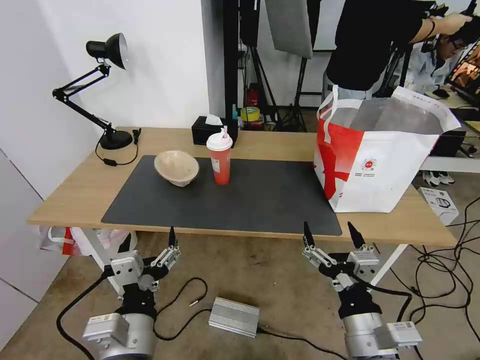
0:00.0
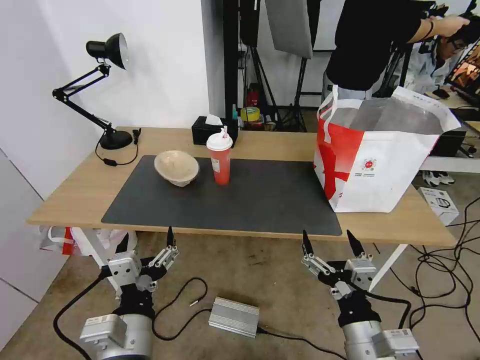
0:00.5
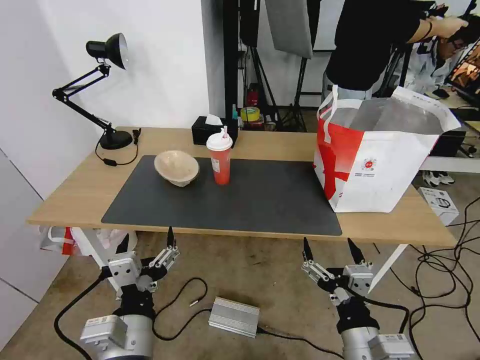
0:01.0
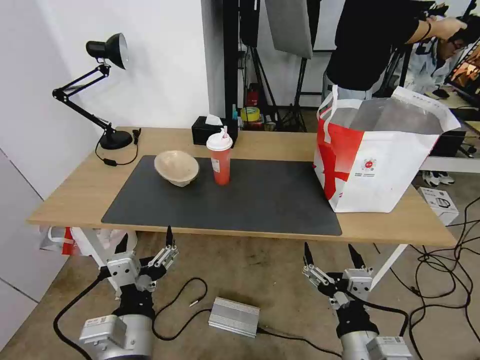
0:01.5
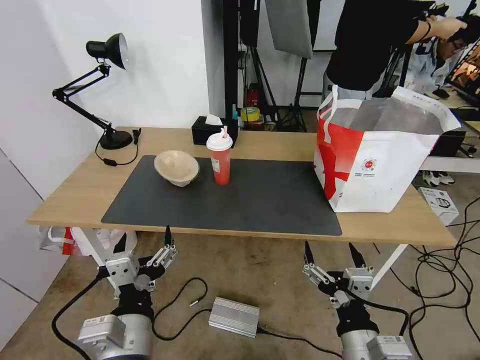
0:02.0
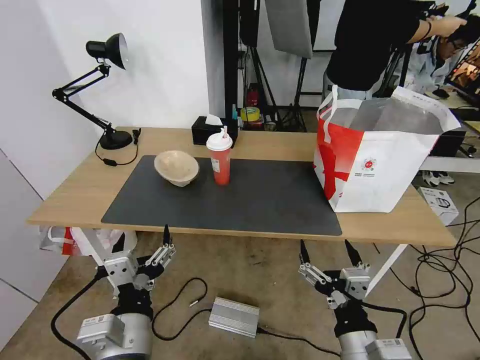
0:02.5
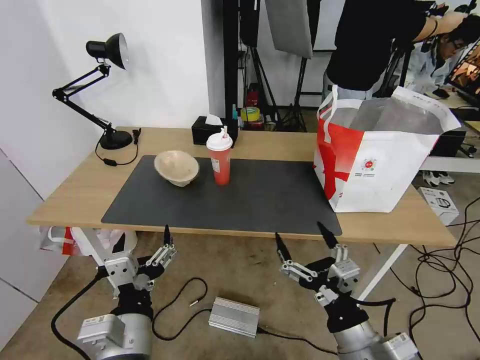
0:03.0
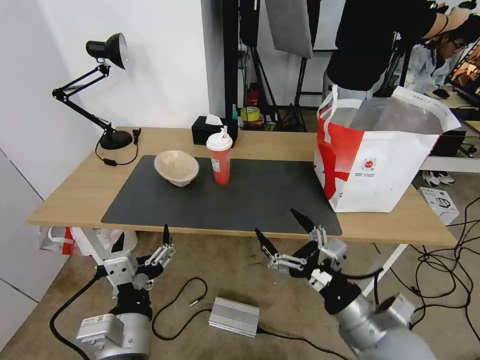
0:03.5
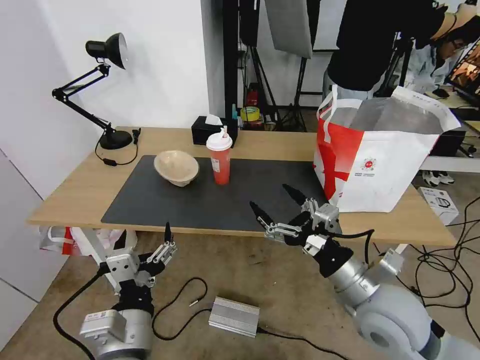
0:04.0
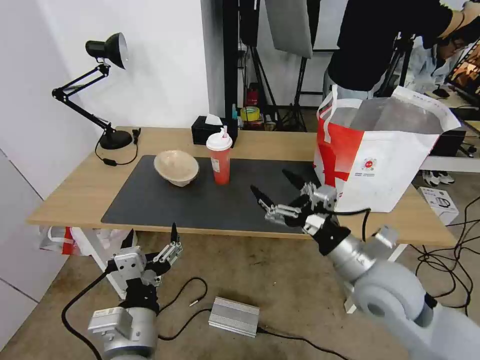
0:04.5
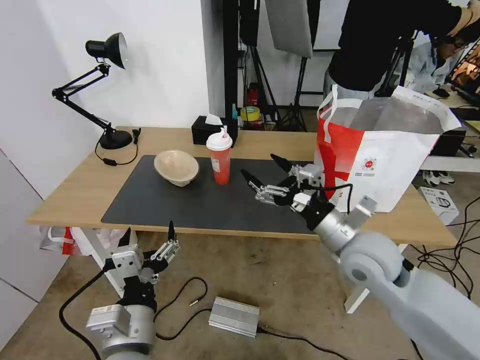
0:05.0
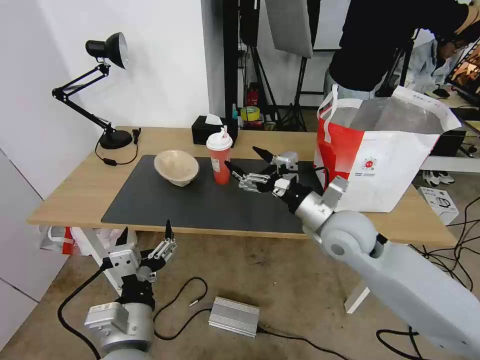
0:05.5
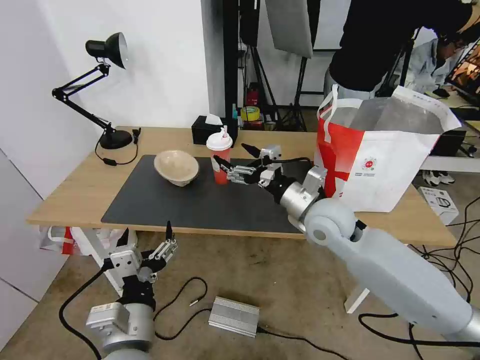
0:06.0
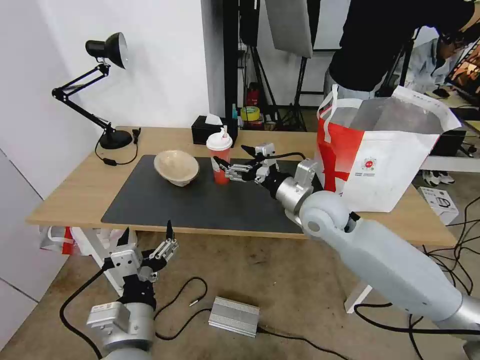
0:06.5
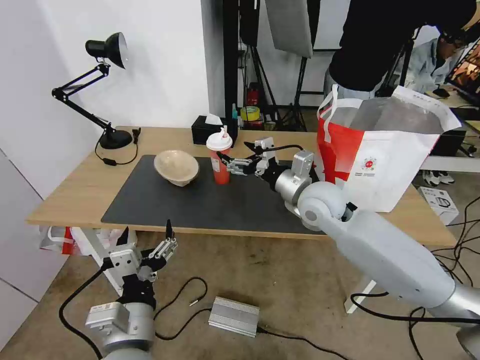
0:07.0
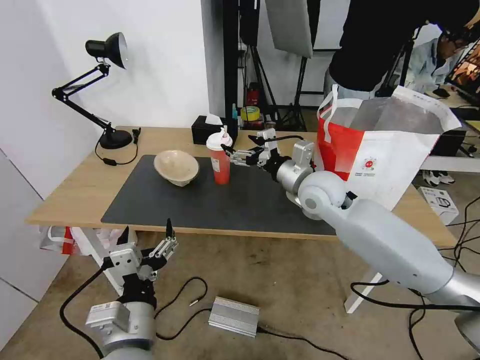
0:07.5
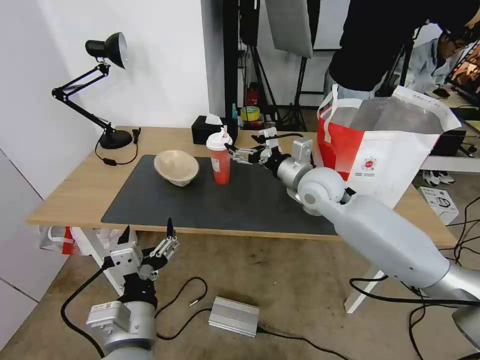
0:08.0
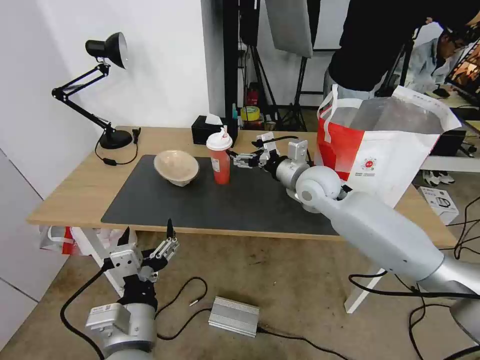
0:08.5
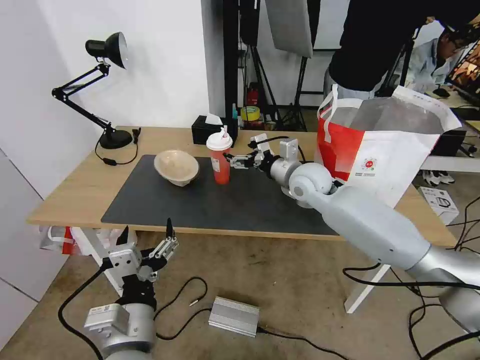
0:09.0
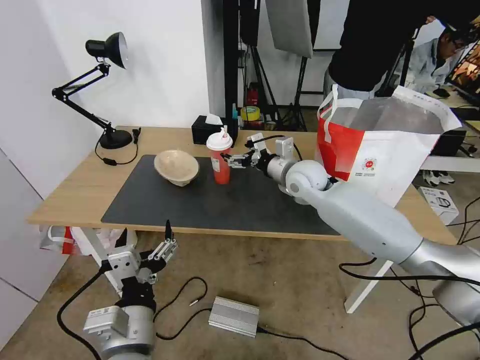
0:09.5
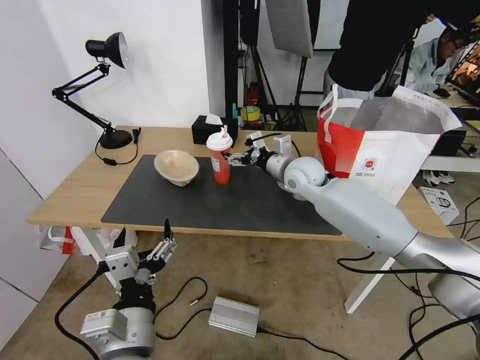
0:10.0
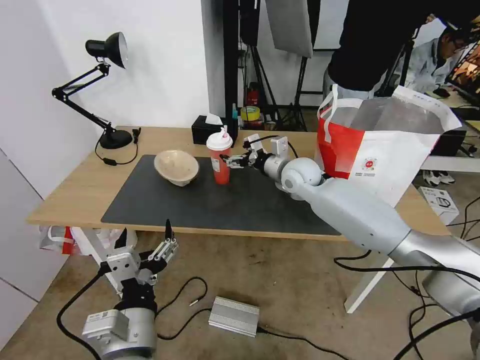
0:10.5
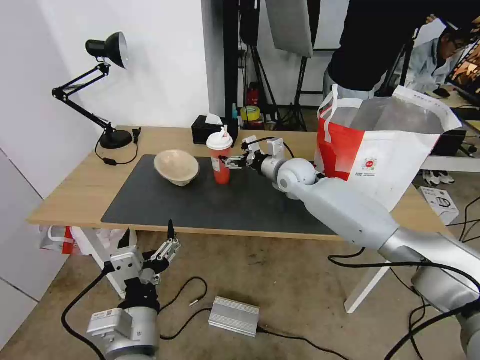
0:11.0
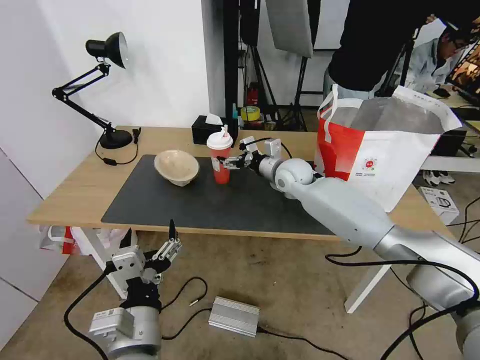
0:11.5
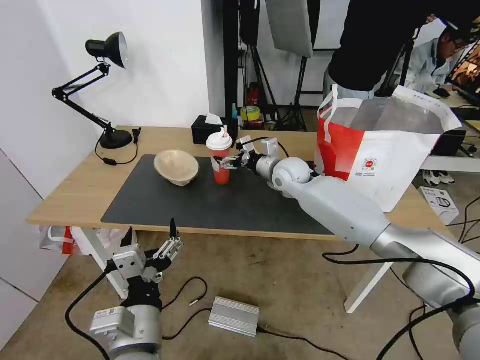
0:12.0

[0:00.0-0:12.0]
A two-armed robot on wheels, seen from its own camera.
Task of the whole recording: Pick up the trash from the table and place it into the takeout bag.
0:00.0 to 0:02.0: There are only small adjustments of the grippers.
0:02.0 to 0:04.0: The right gripper goes about 15 cm forward and upward.
0:04.0 to 0:06.0: The right gripper moves forward, roughly 15 cm.
0:06.0 to 0:08.0: The right gripper shifts about 5 cm forward.
0:08.0 to 0:10.0: The right gripper travels forward by some 5 cm.
0:10.0 to 0:12.0: There are only small adjustments of the grippers.

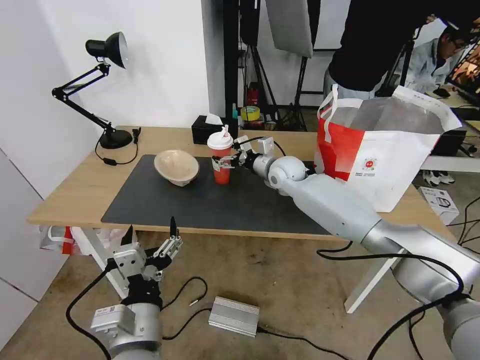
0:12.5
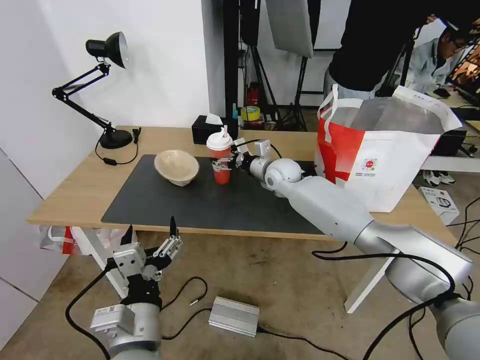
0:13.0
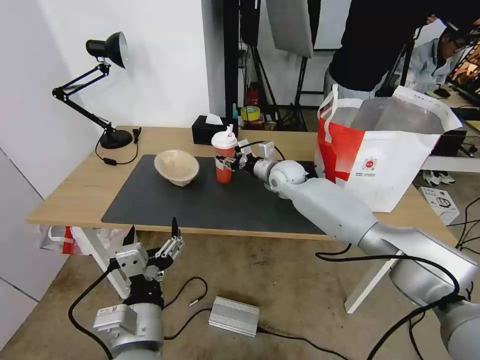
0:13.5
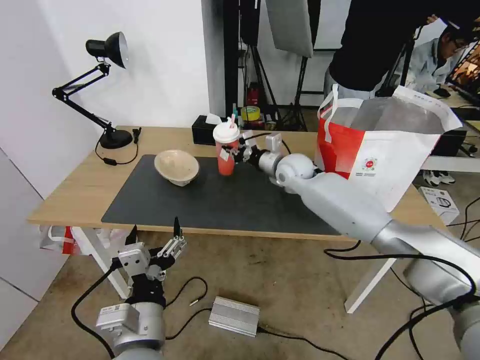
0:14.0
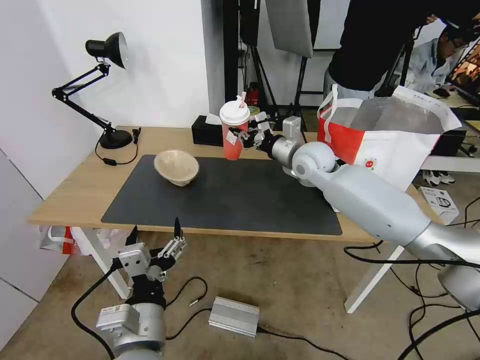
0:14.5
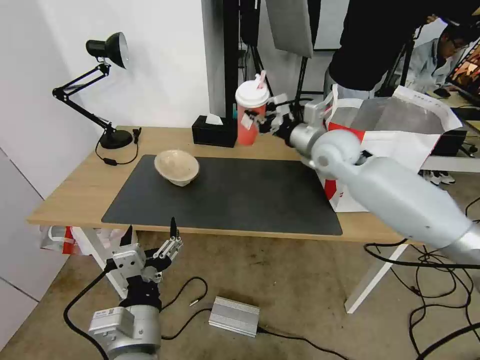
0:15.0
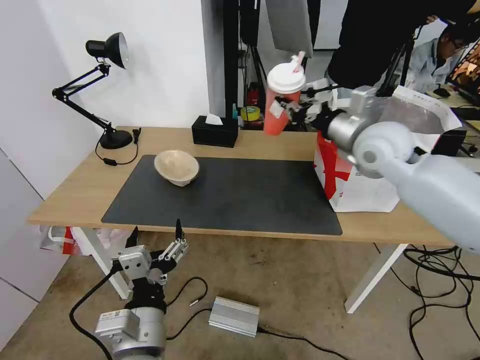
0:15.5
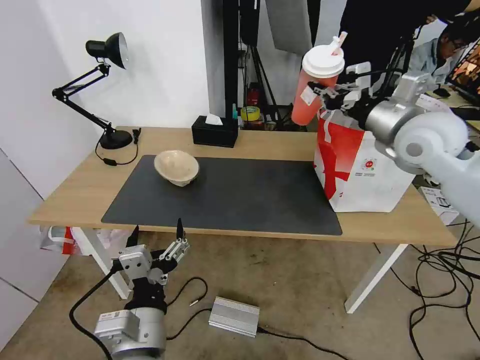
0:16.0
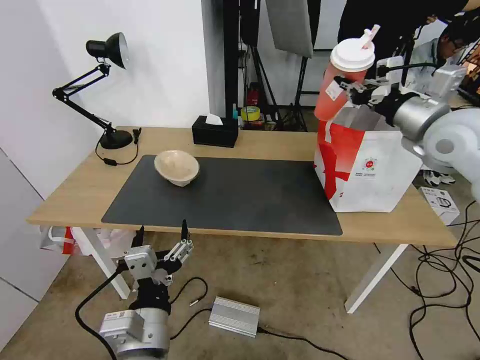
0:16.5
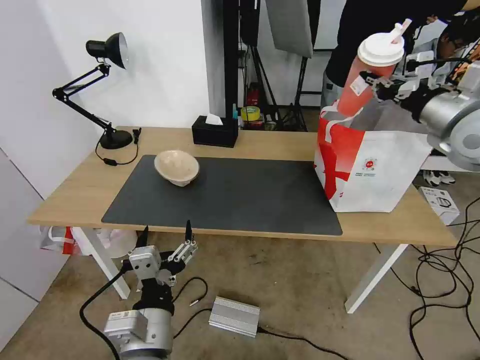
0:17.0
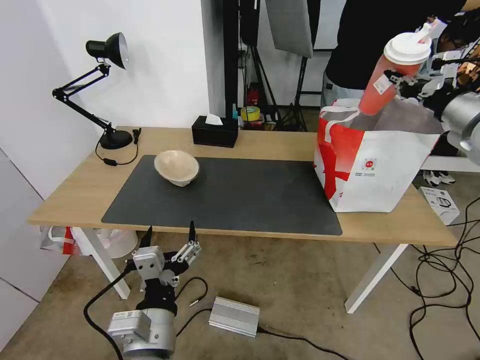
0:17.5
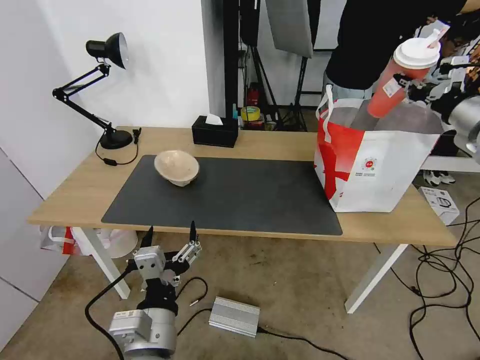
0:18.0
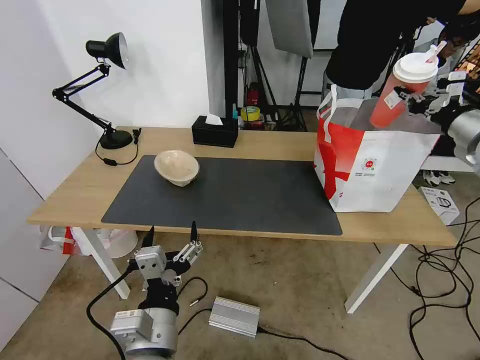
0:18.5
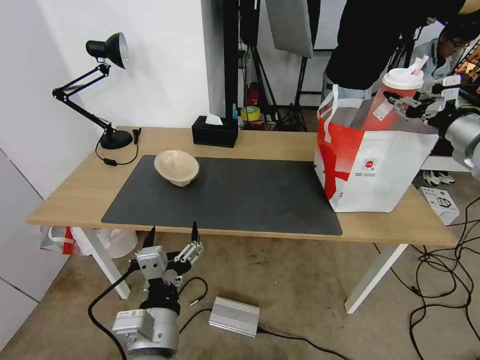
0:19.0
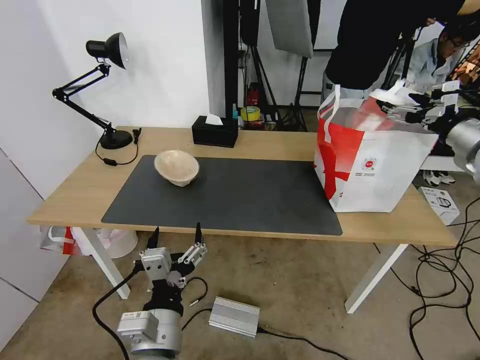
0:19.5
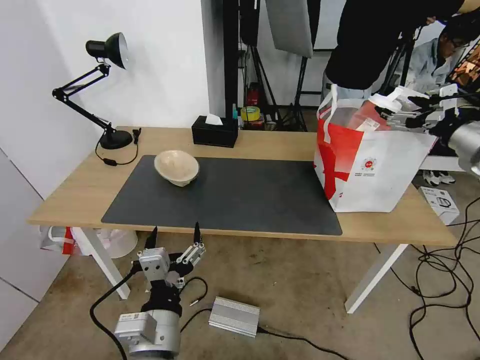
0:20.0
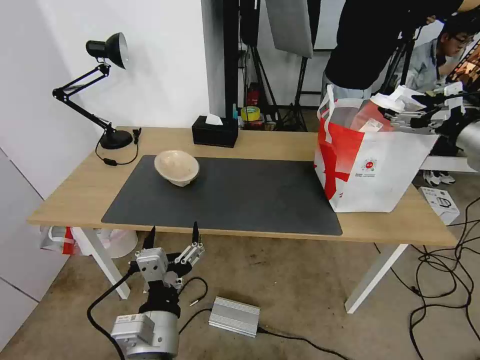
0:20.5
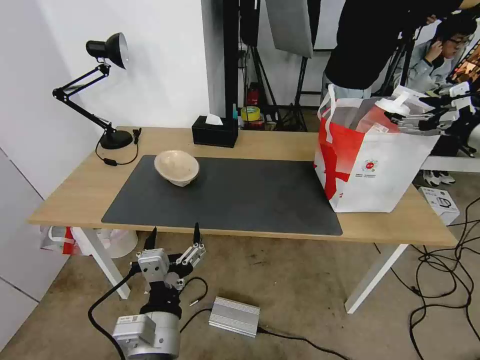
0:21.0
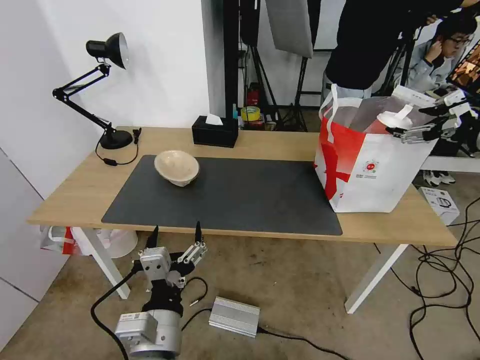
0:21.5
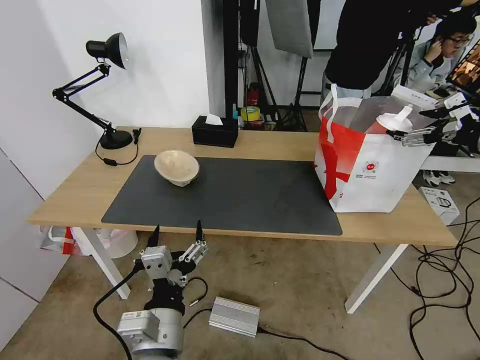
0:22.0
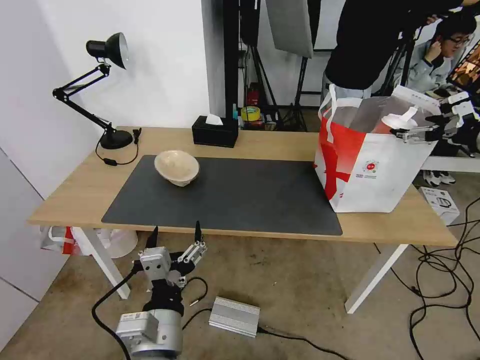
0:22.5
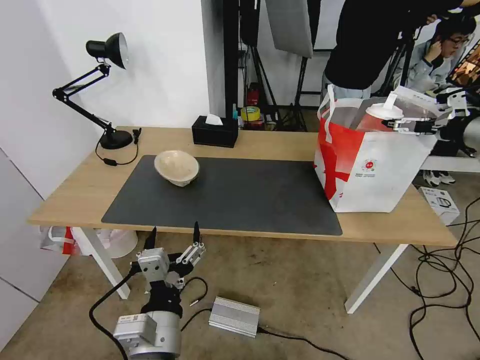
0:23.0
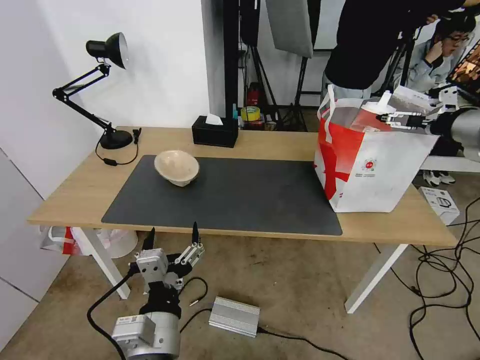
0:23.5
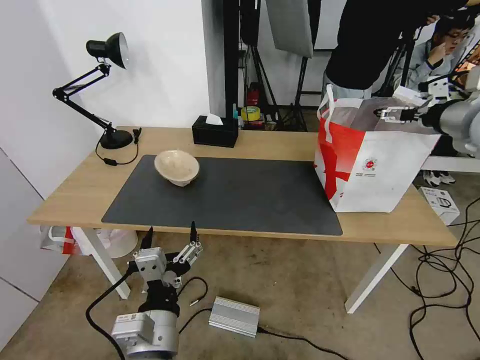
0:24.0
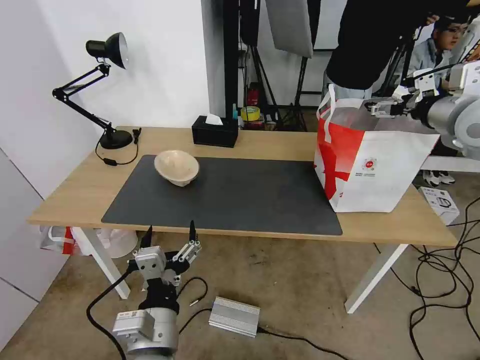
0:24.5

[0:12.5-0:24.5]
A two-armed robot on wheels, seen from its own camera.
Task of the whole recording: Pick up the trash from the table and place it into the takeout bag.
0:12.5 to 0:14.5: The right gripper is displaced upward by some 5 cm, and closes its fingers.
0:14.5 to 0:16.5: The right gripper goes some 25 cm to the right, upward and backward.
0:16.5 to 0:18.5: The right gripper moves to the right, roughly 15 cm.
0:18.5 to 0:20.5: The right gripper opens its fingers.
0:20.5 to 0:22.5: The grippers stay close to where they were, moving slightly.
0:22.5 to 0:24.5: The right gripper shifts about 10 cm to the left and forward.

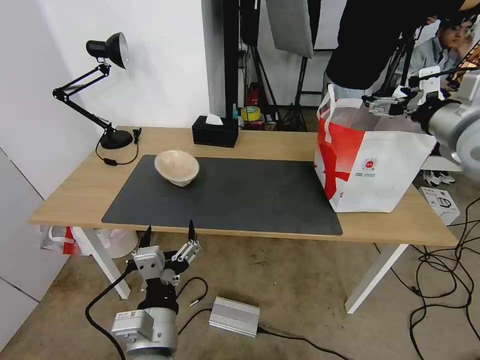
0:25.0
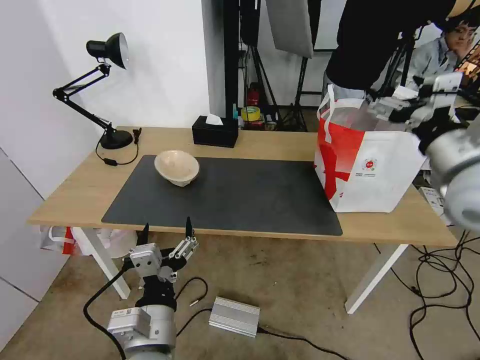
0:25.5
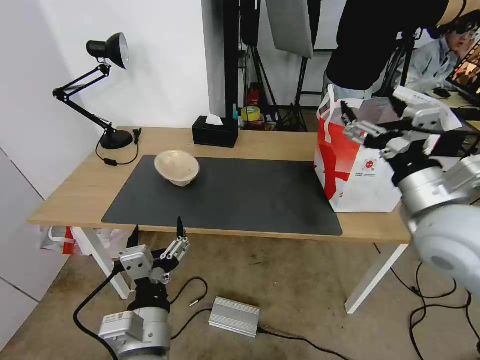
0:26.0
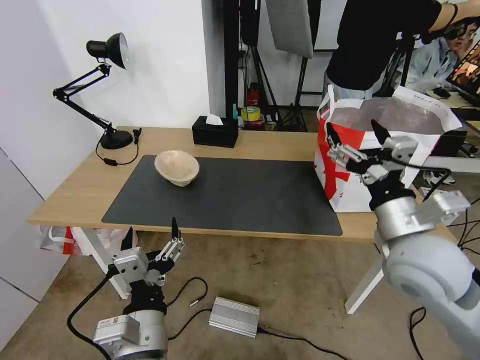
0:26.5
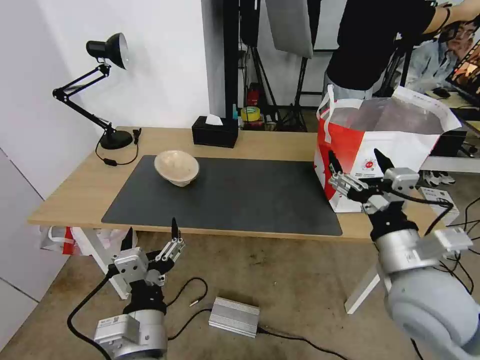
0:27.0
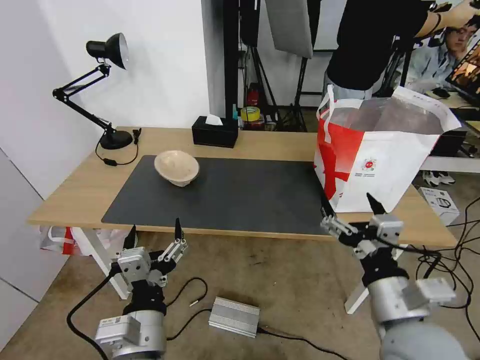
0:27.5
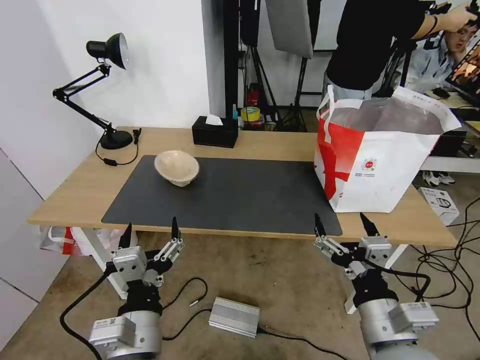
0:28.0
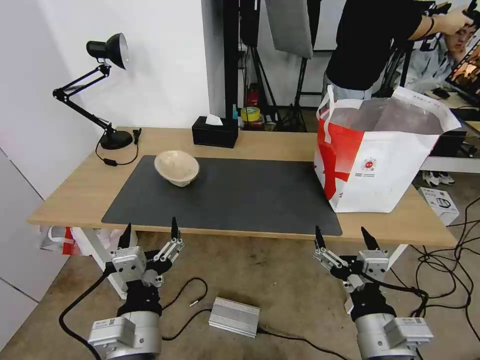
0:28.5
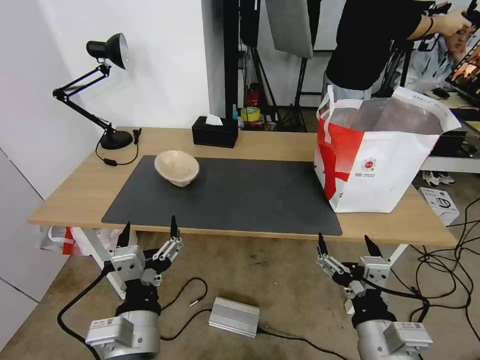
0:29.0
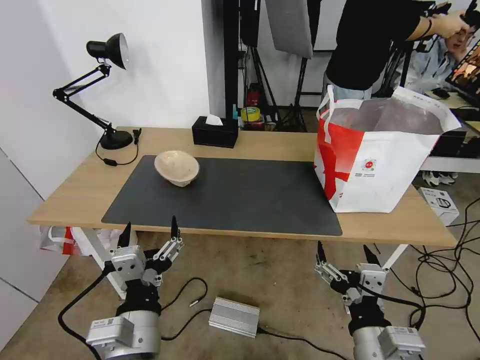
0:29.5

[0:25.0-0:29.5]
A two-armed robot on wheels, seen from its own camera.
Task of the whole recording: Pick up the trash from the table and place it into the takeout bag.
0:25.0 to 0:27.0: The right gripper shifts about 25 cm backward, downward and to the left.
0:27.0 to 0:29.5: The right gripper shifts some 15 cm backward, downward and to the left.
